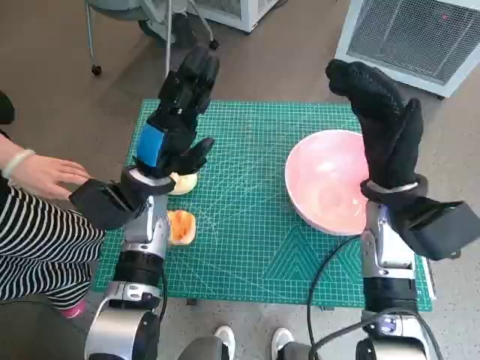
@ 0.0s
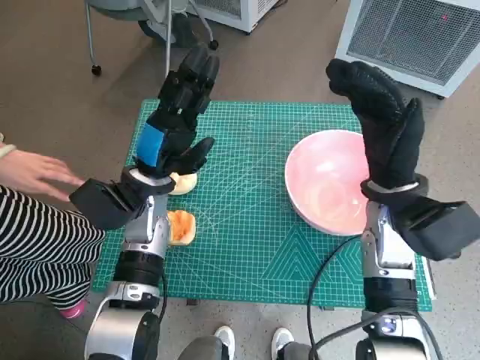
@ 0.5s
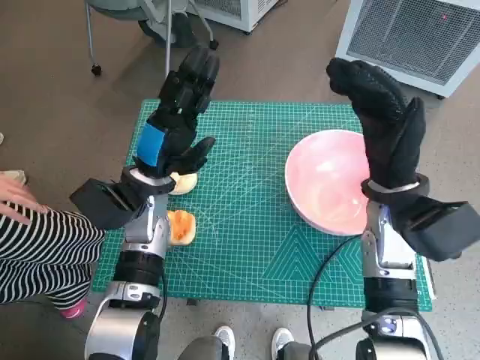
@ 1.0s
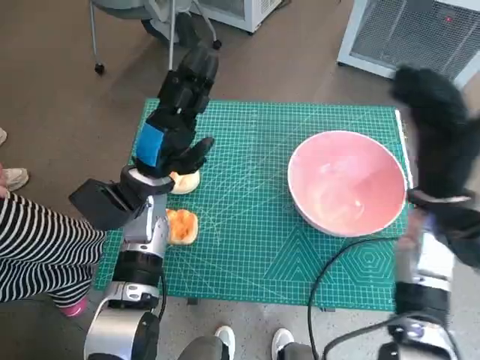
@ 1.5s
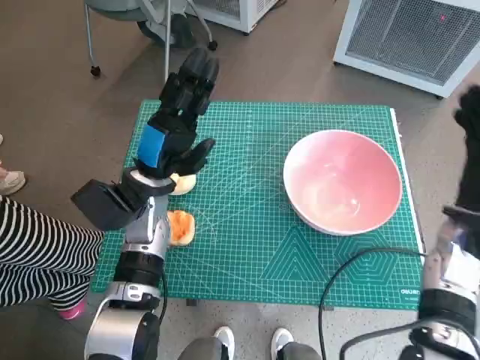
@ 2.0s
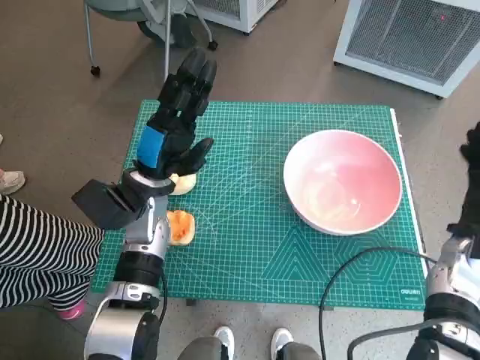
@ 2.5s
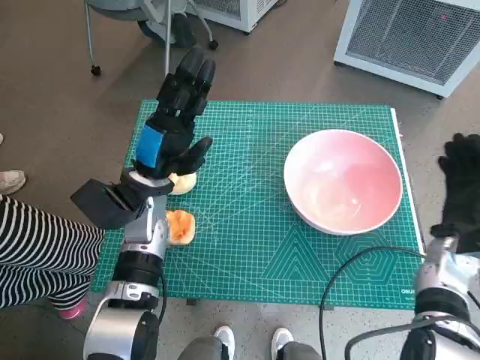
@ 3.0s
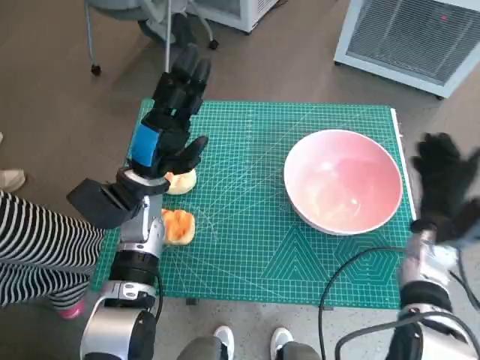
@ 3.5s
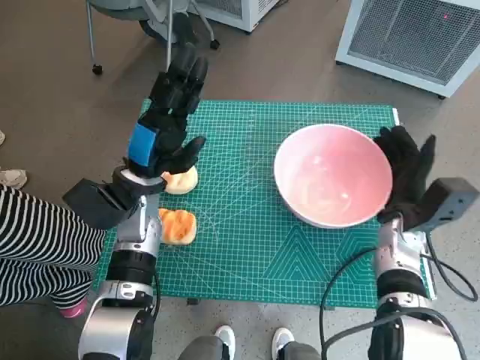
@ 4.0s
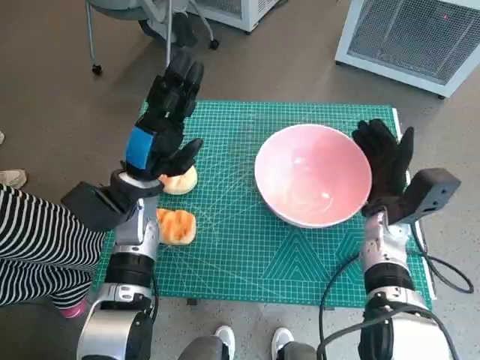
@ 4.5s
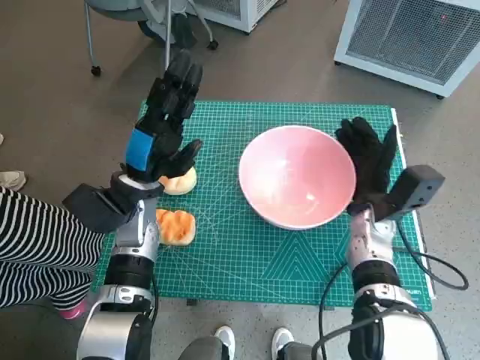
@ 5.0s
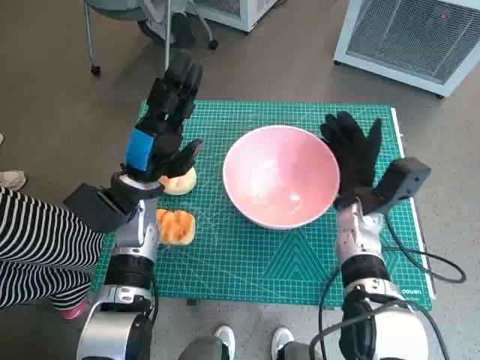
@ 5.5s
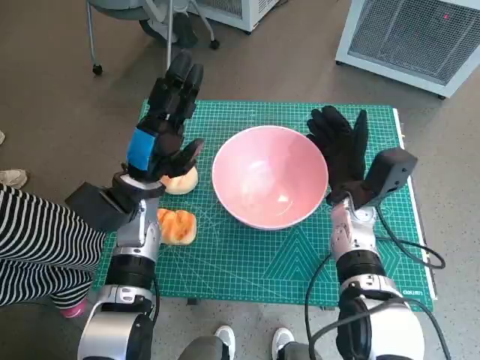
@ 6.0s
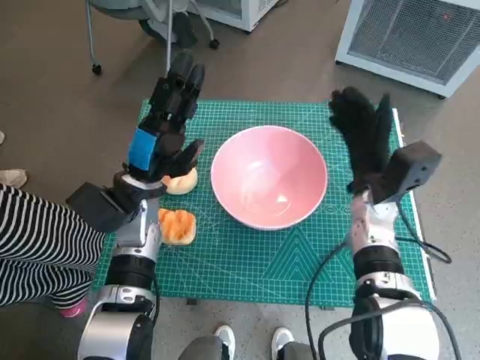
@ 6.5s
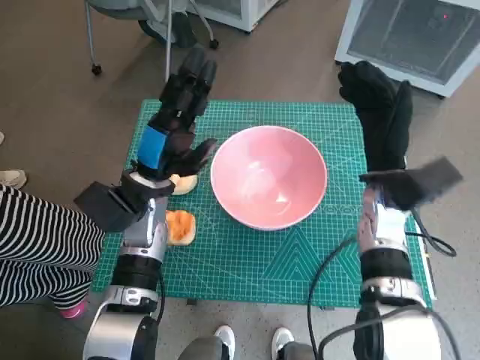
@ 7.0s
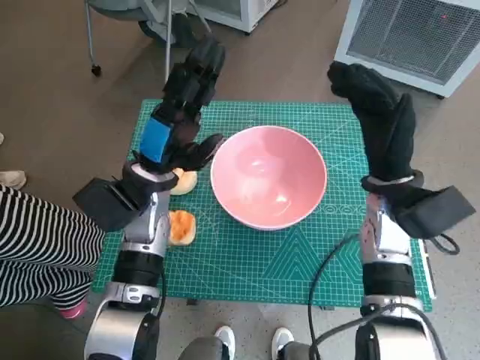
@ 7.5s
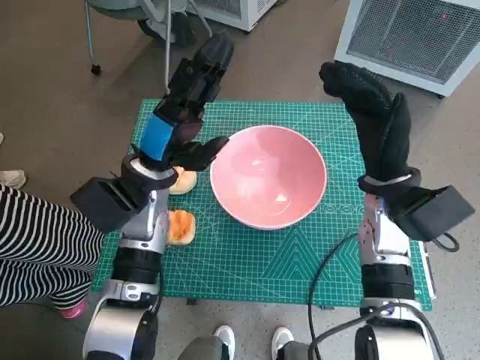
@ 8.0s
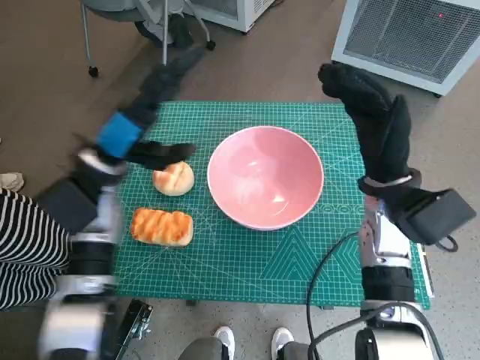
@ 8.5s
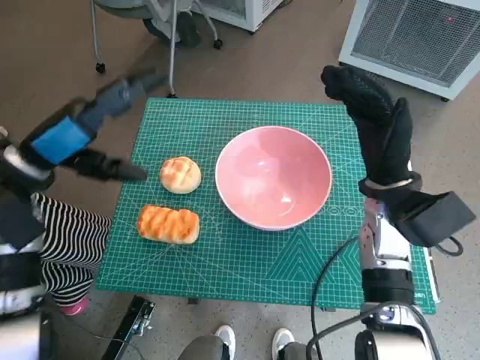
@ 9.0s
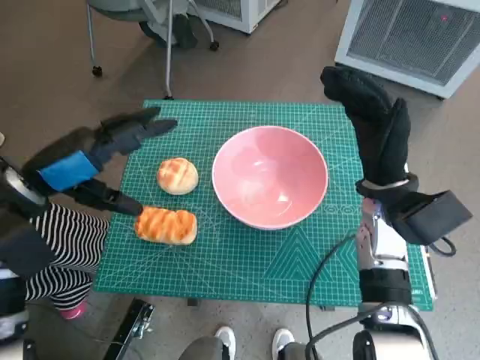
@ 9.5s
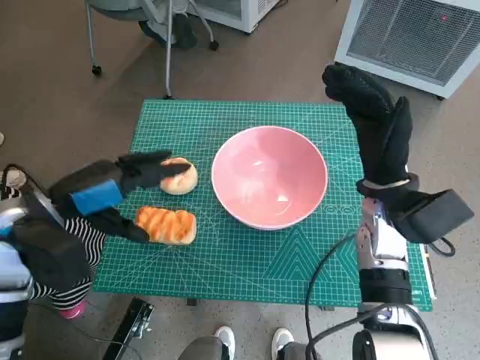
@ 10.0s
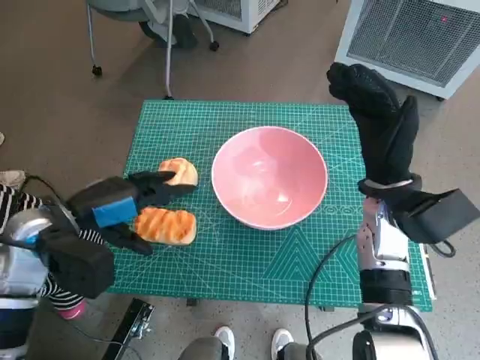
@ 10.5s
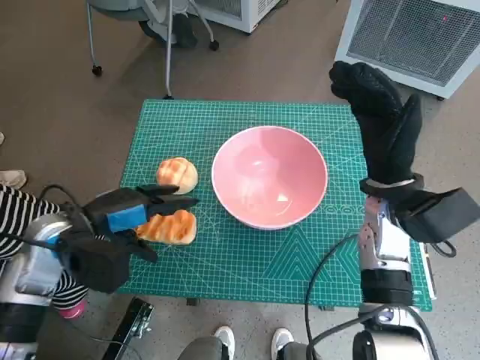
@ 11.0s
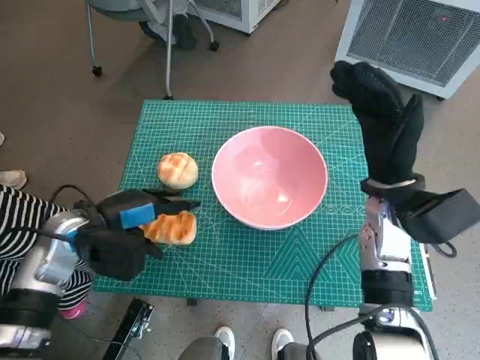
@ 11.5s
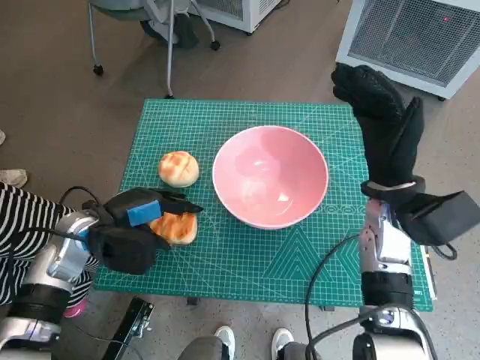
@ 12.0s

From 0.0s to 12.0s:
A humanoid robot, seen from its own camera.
Task of the whole recording: Push the bowl into the center of the table and put the bread into the bowl.
Step, from 0.0s to 6.0s: Move the pink bowl to the center of table with right hand.
From 2.0s to 4.0s: The right hand goes some 10 cm downward and to the left.
From 4.0s to 6.0s: The right hand heads to the left, covering roughly 5 cm.
From 6.0s to 8.0s: The right hand heads upward, covering about 10 cm.
From 8.0s to 10.0s: The left hand travels to the left and backward by some 15 cm.
From 10.0s to 12.0s: The left hand travels downward by roughly 10 cm.

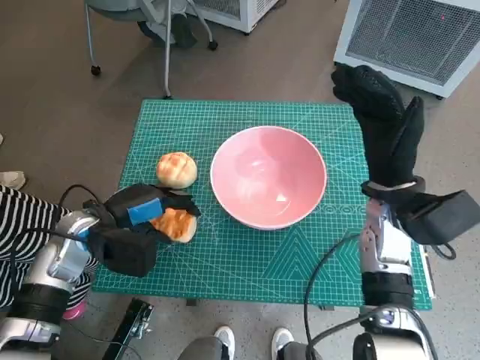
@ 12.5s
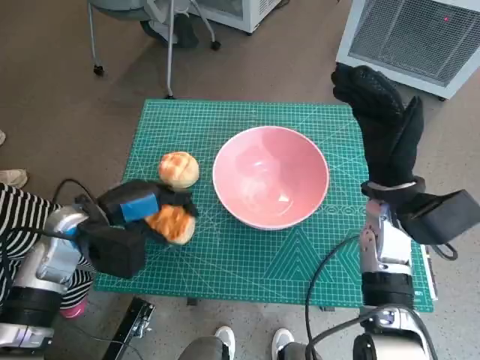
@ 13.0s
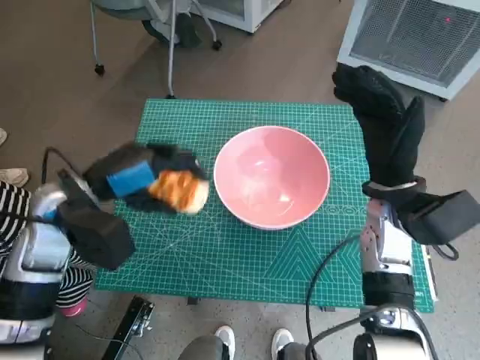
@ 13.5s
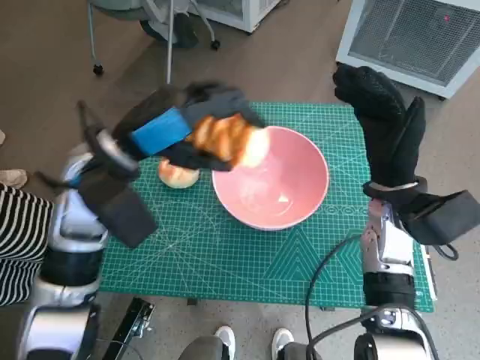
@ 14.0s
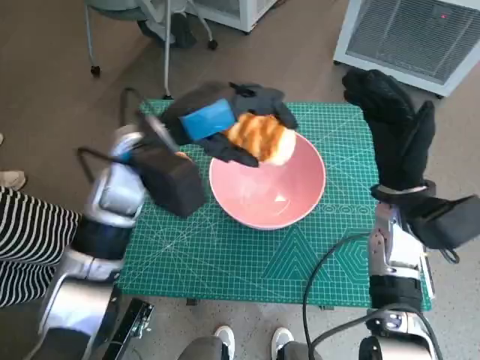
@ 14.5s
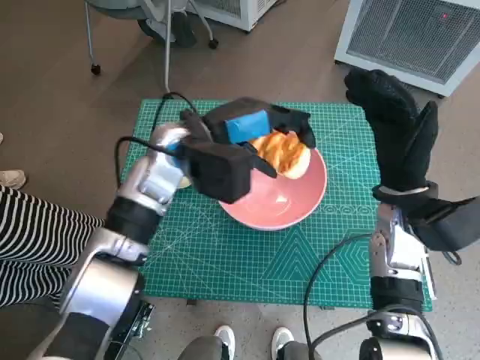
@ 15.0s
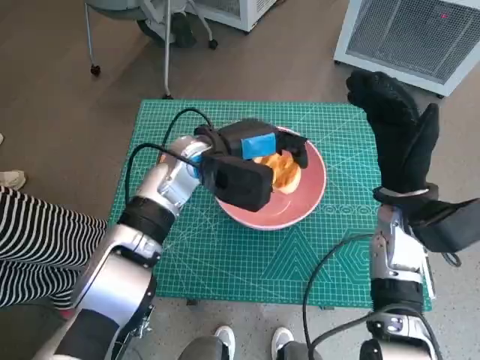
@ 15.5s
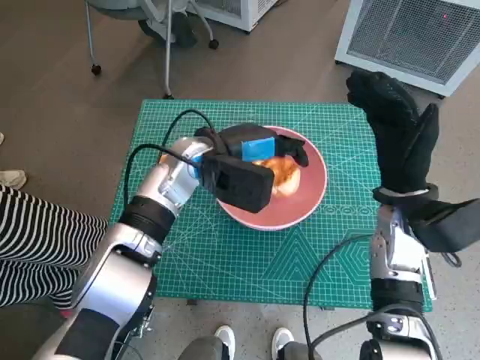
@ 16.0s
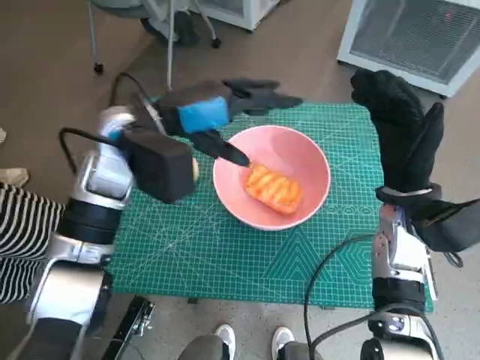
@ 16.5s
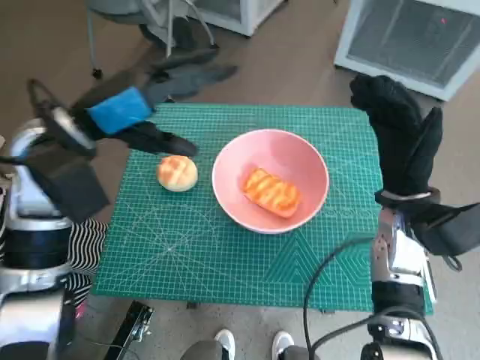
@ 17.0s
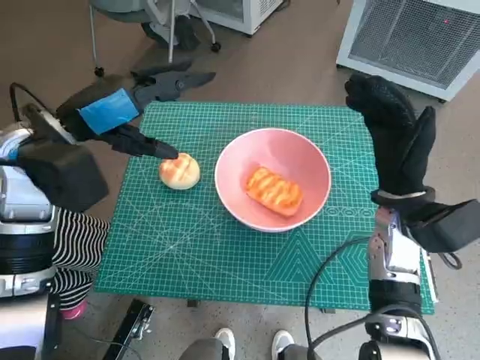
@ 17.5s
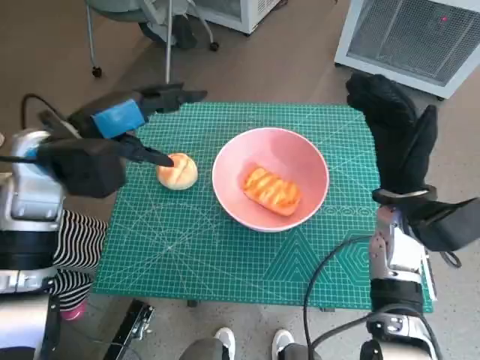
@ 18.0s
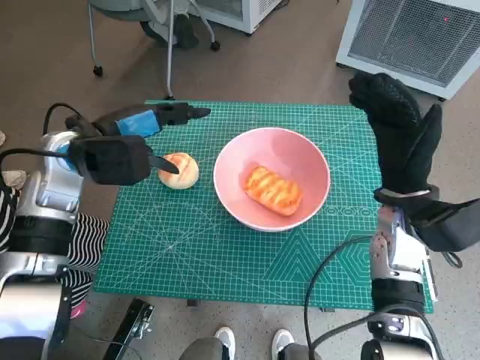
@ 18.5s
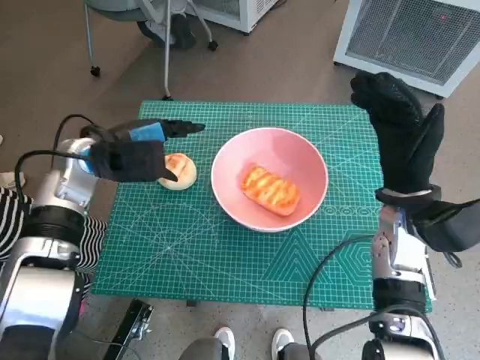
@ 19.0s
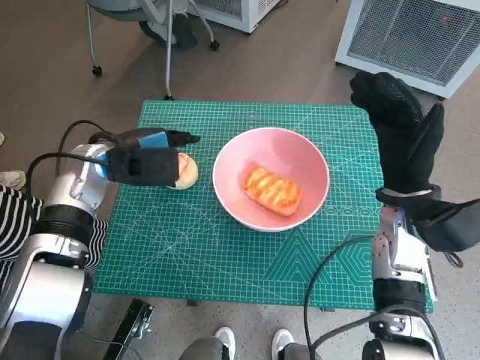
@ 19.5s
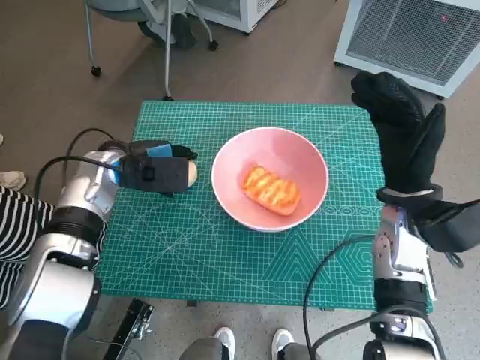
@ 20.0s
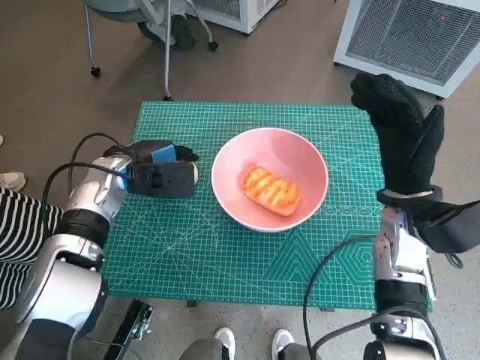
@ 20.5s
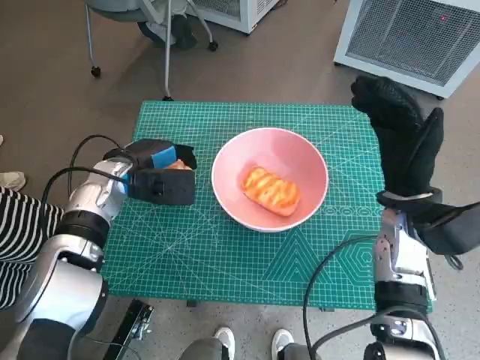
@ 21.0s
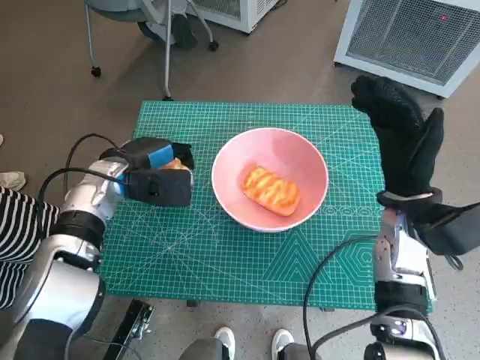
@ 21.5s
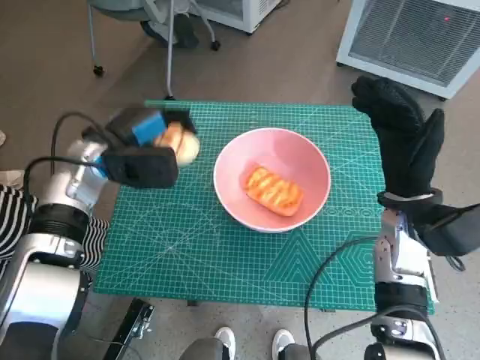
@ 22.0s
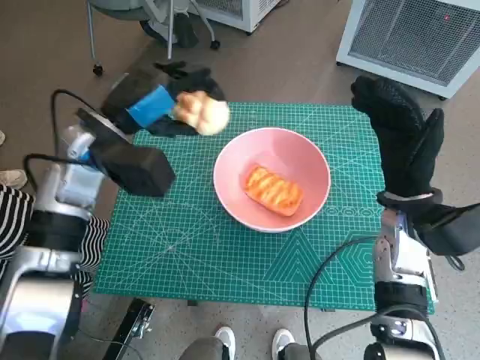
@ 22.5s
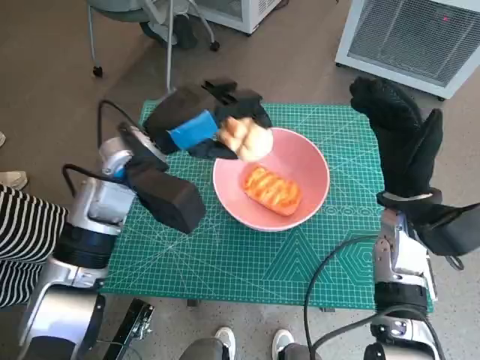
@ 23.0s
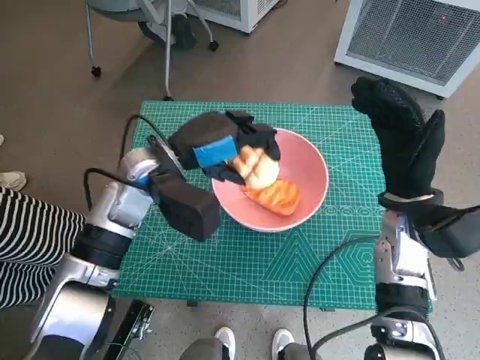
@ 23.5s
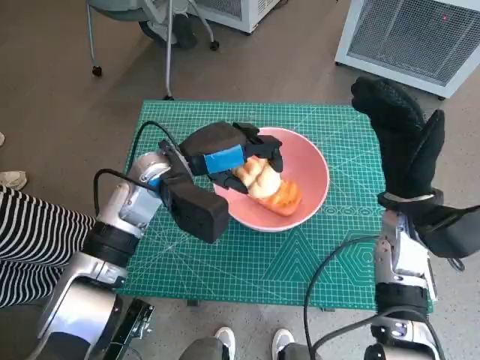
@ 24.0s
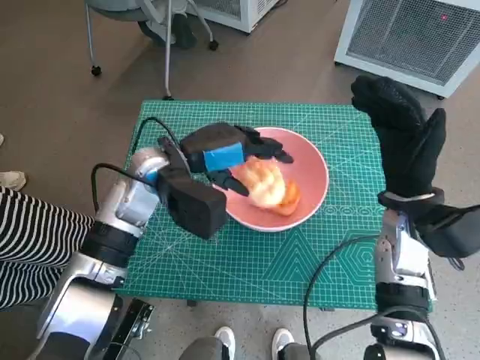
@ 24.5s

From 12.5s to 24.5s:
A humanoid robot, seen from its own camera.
Task of the whole recording: Push the bowl into the center of the table and put the bread into the bowl.
Step, from 12.5s to 16.5s: Place the long bread in pink bowl with left hand.
Step, from 17.0s to 20.5s: Grasp the round bread with left hand.
From 12.5s to 14.5s: The left hand travels upward, to the right and forward by some 15 cm.
From 16.5s to 18.5s: The left hand goes some 10 cm to the left.
From 18.5s to 20.5s: The left hand goes some 10 cm downward.
From 20.5s to 22.5s: The left hand is displaced upward by about 10 cm.
From 22.5s to 24.5s: The left hand moves to the right, roughly 5 cm.

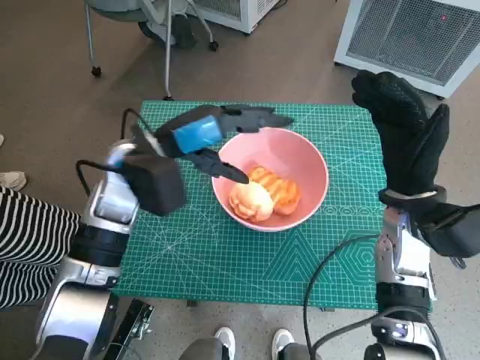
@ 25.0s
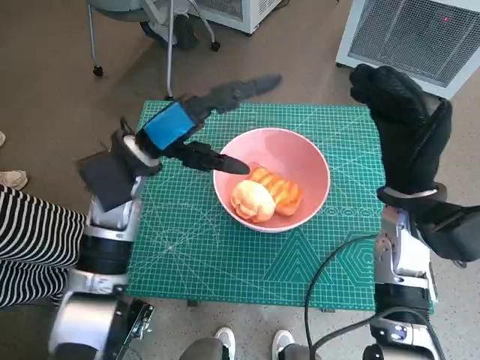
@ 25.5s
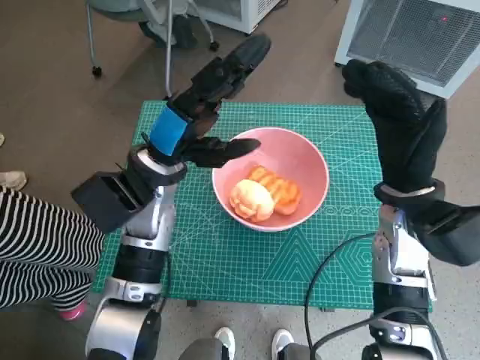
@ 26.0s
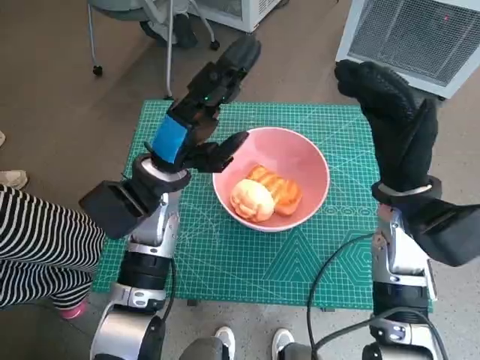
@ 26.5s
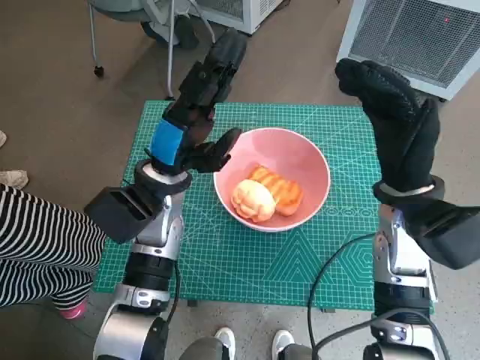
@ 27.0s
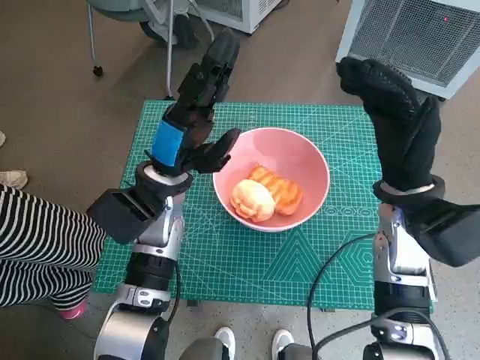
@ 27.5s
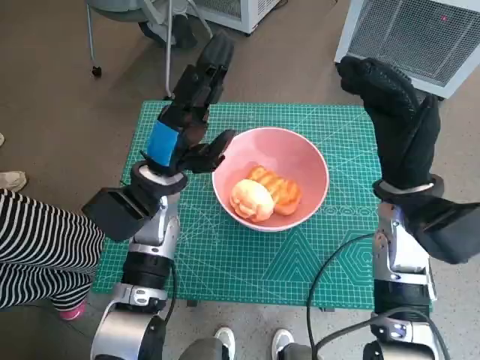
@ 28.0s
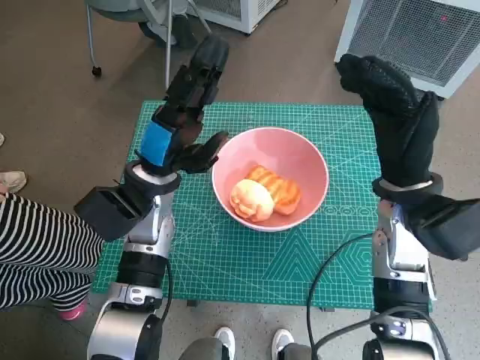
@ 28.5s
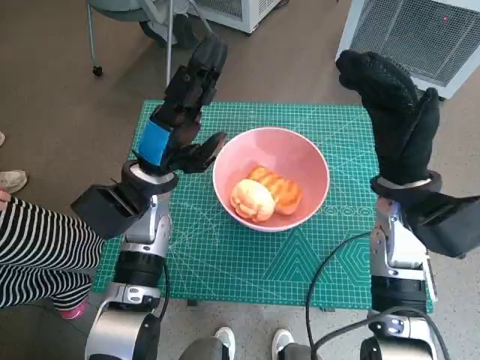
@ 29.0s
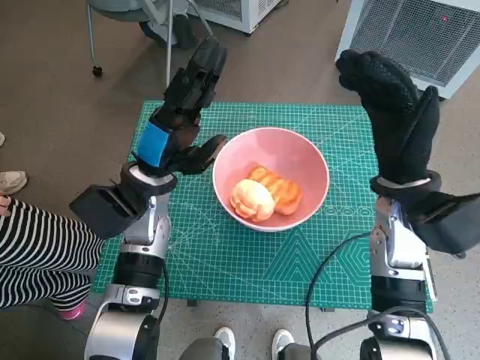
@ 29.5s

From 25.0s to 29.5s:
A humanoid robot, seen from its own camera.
Task of the whole recording: Push the bowl into the center of the table and put the bread into the bowl.
From 27.0s to 29.5s: The hands stay close to where they were, moving slightly.
